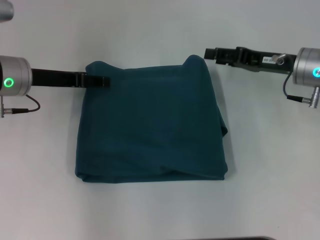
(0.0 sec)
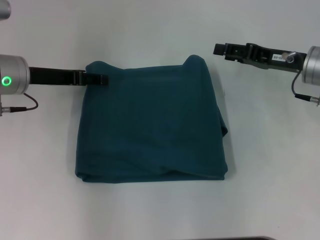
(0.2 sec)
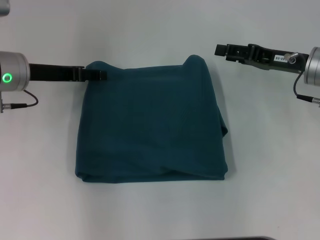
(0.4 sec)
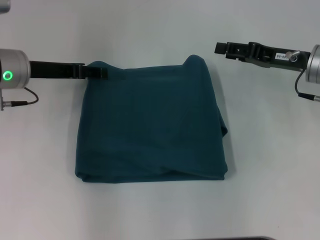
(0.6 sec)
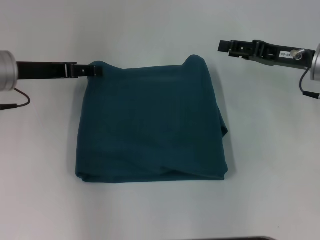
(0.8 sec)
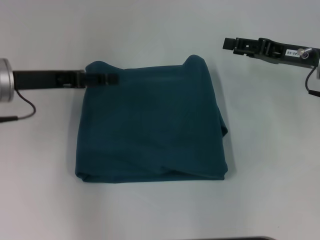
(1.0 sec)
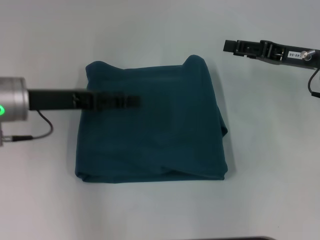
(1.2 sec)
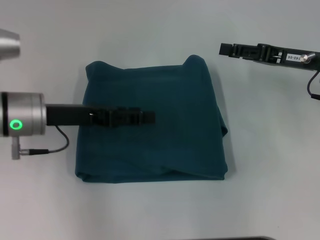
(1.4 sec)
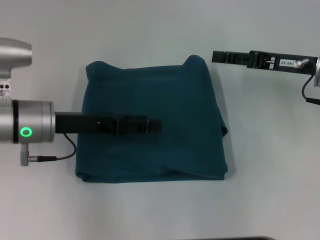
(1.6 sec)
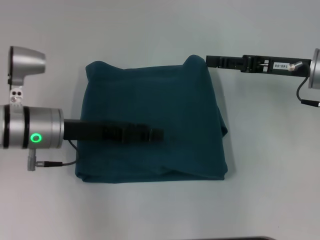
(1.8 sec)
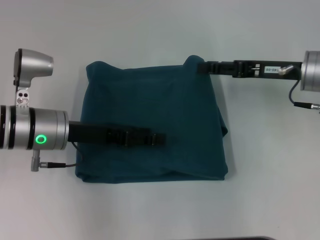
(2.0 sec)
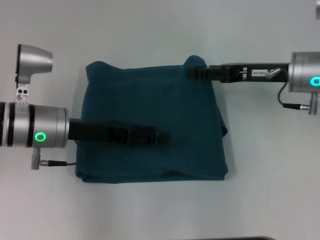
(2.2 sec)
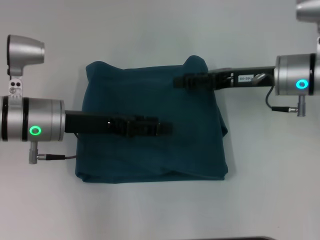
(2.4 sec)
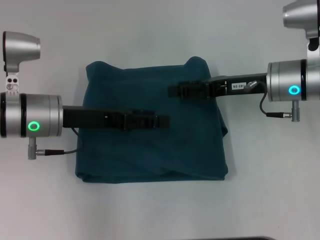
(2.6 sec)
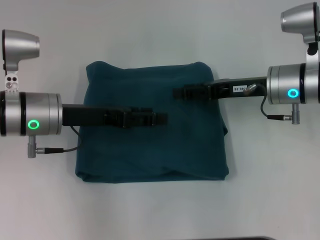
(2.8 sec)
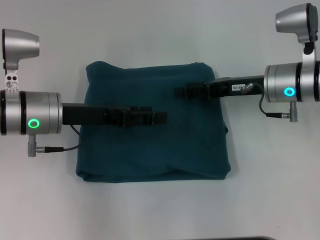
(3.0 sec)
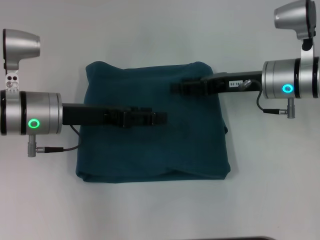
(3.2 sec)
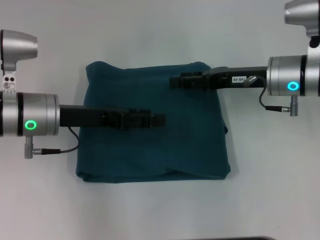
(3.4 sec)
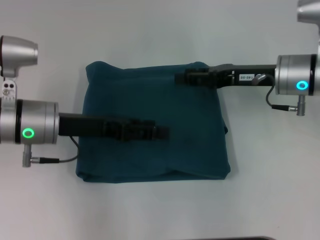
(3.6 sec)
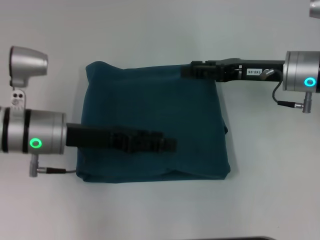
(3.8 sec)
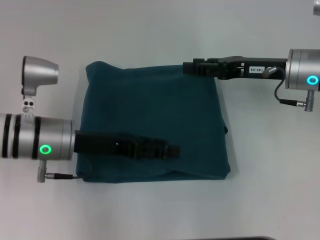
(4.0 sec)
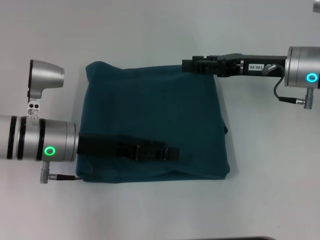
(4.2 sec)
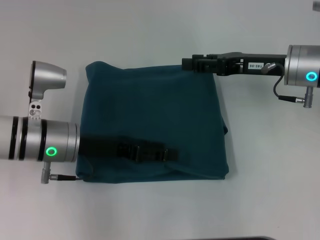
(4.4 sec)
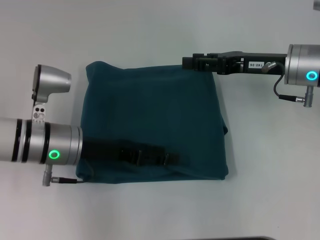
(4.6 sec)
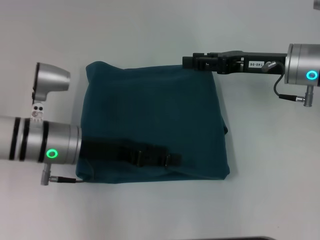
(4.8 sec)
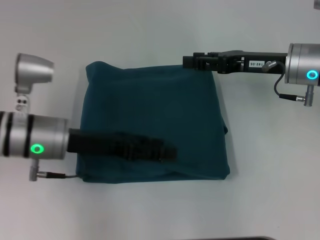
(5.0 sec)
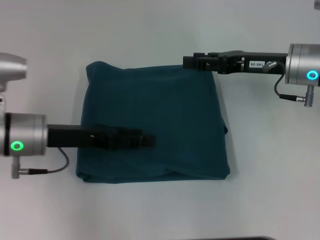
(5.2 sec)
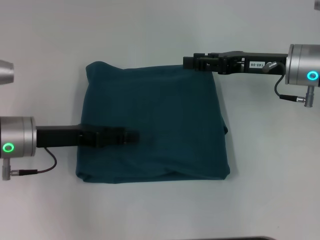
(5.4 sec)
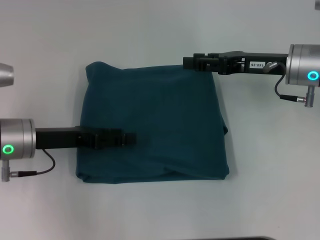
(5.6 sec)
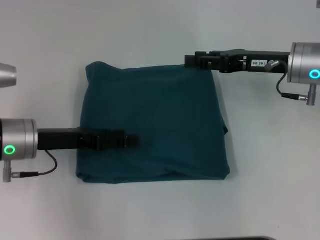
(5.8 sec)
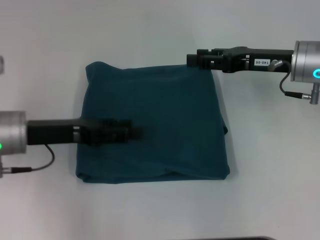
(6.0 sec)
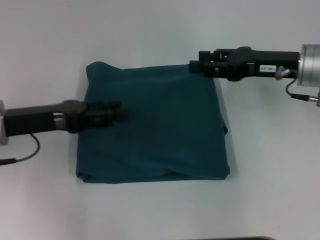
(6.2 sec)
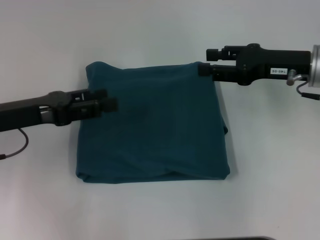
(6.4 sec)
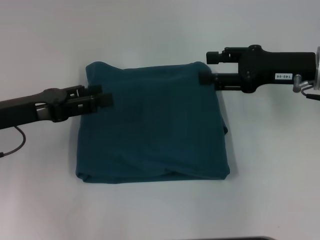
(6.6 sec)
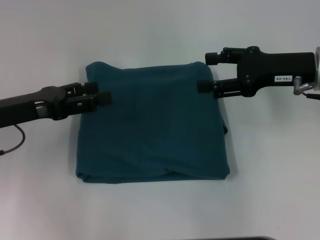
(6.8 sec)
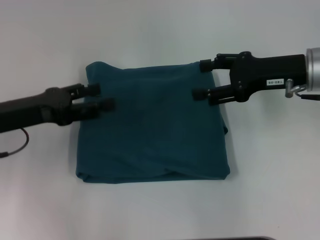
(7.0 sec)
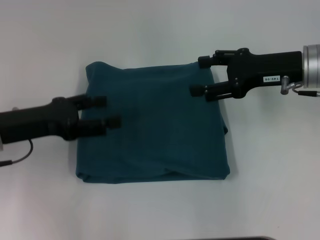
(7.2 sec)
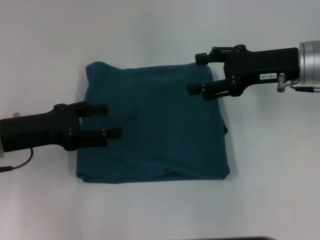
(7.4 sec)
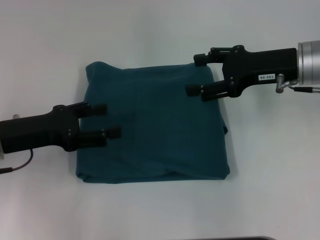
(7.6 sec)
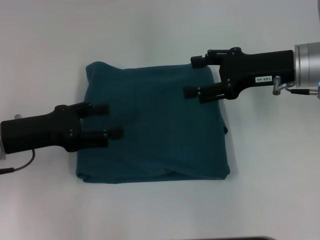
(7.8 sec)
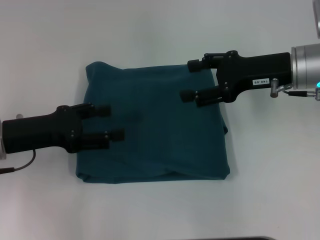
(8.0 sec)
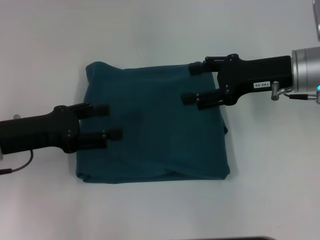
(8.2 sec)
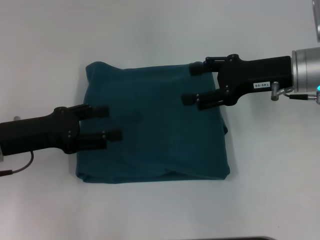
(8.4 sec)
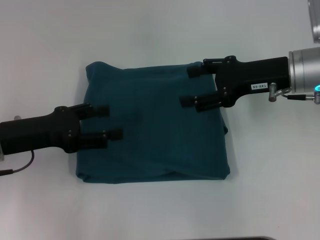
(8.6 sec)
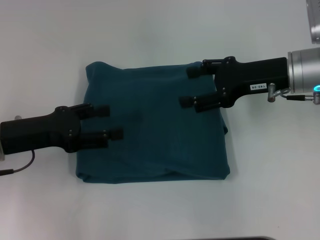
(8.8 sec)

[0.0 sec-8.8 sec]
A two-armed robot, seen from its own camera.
0.0 sec to 1.4 sec: The left gripper heads backward, covering about 5 cm.
1.4 sec to 3.0 sec: The right gripper moves to the left, roughly 5 cm.
4.4 sec to 5.8 sec: The left gripper moves to the left, about 5 cm.
7.4 sec to 8.8 sec: There are only small adjustments of the grippers.
